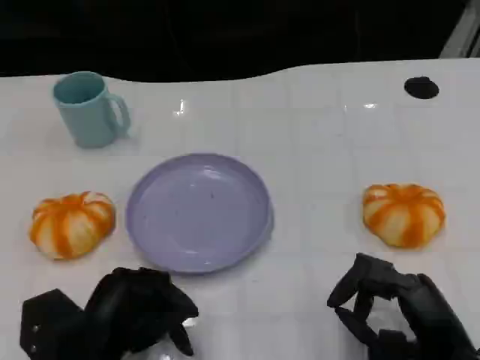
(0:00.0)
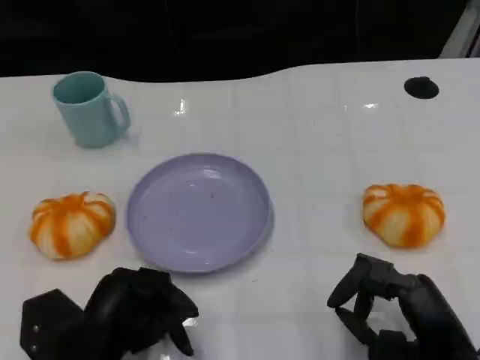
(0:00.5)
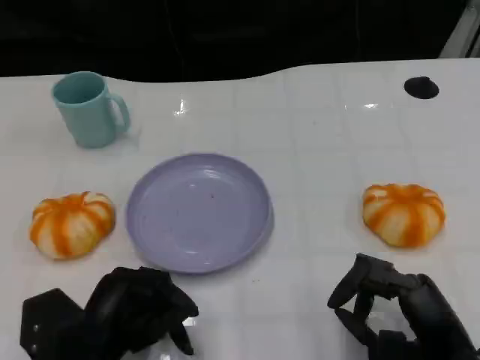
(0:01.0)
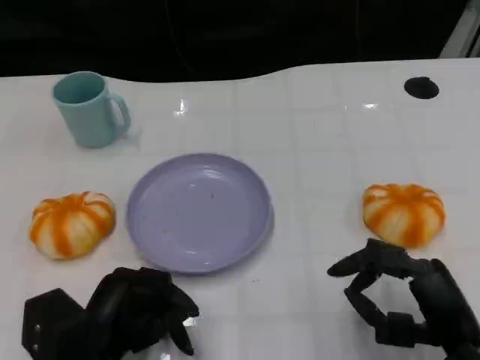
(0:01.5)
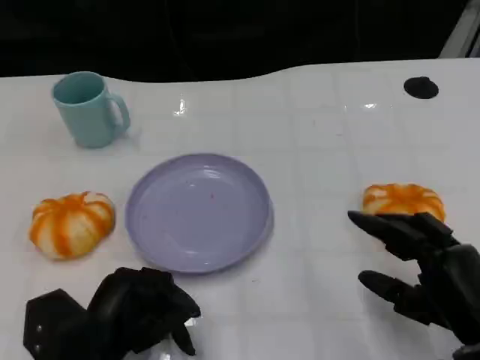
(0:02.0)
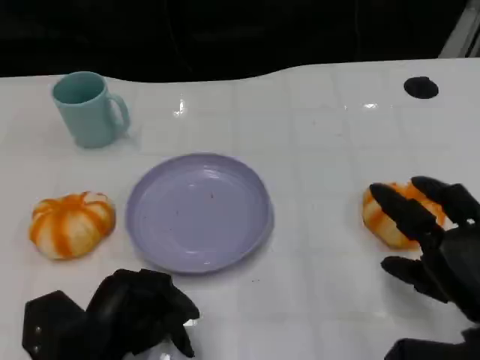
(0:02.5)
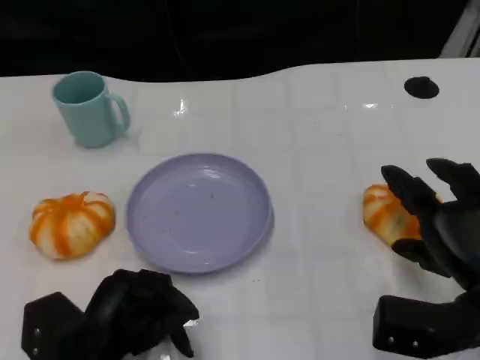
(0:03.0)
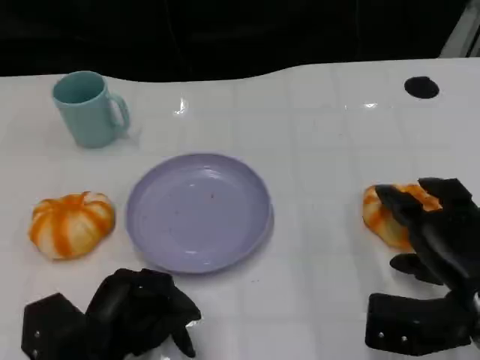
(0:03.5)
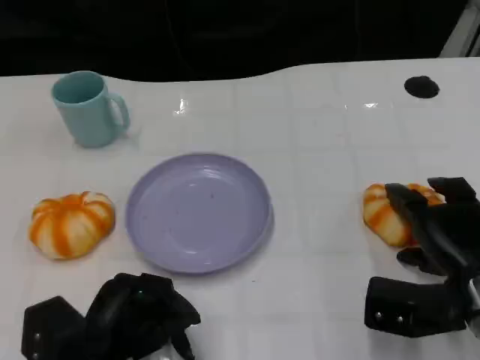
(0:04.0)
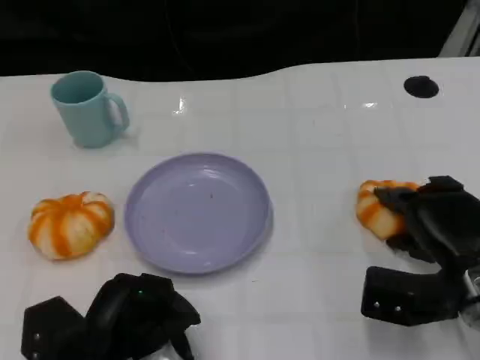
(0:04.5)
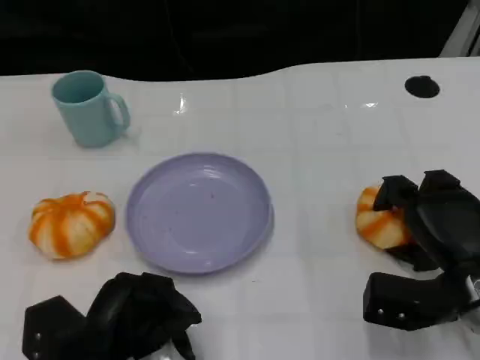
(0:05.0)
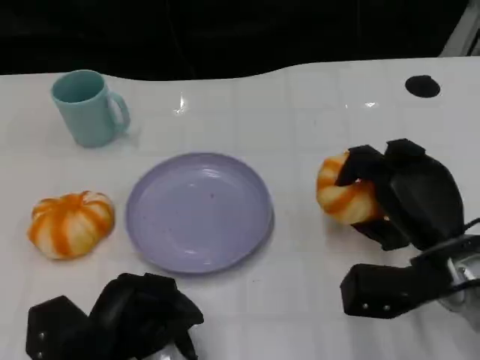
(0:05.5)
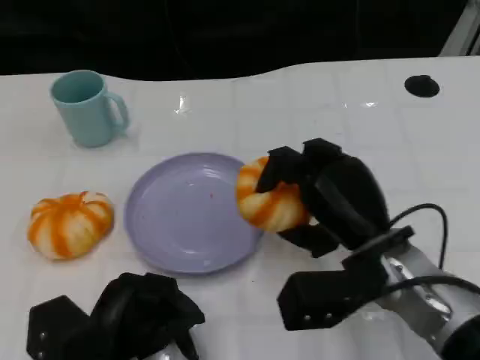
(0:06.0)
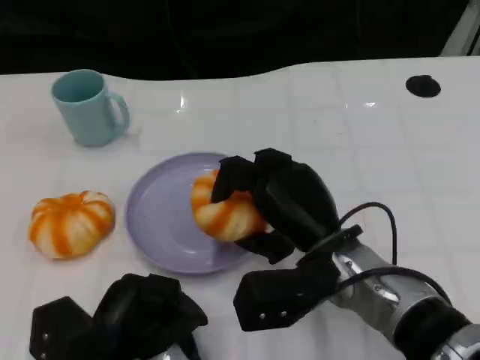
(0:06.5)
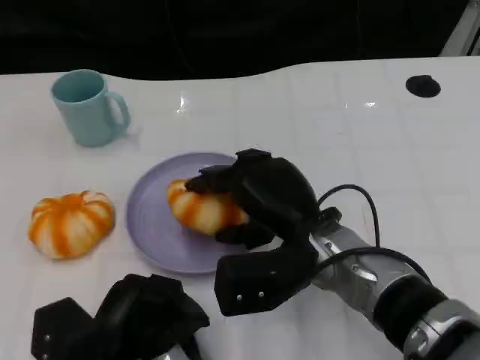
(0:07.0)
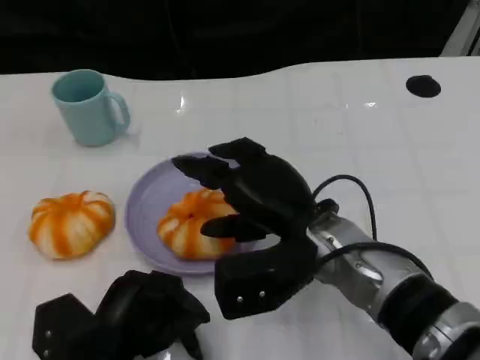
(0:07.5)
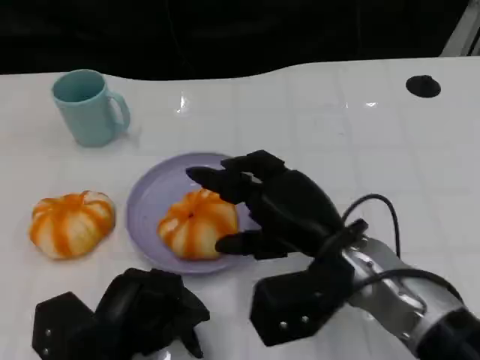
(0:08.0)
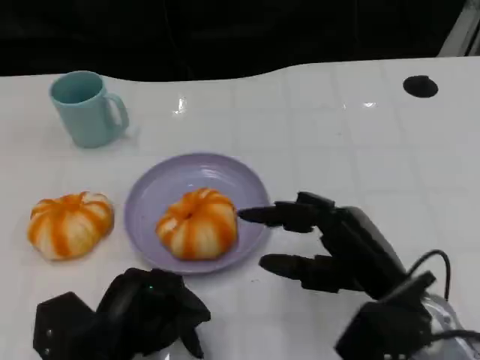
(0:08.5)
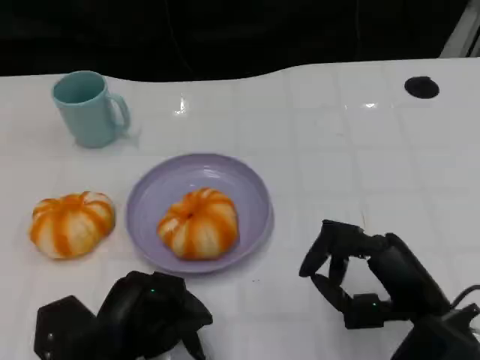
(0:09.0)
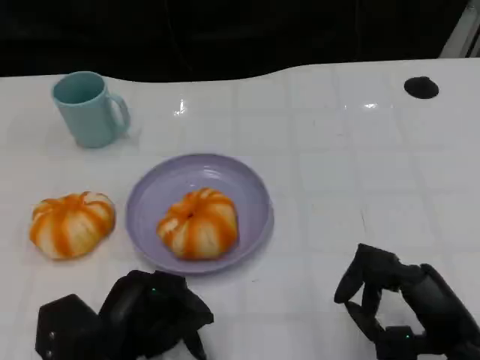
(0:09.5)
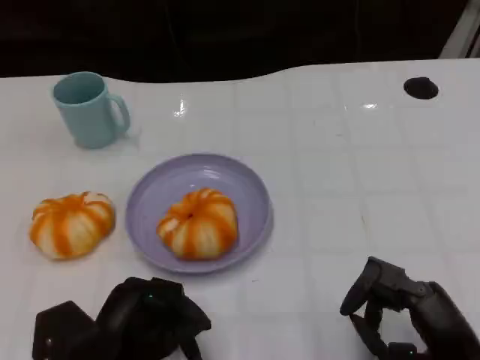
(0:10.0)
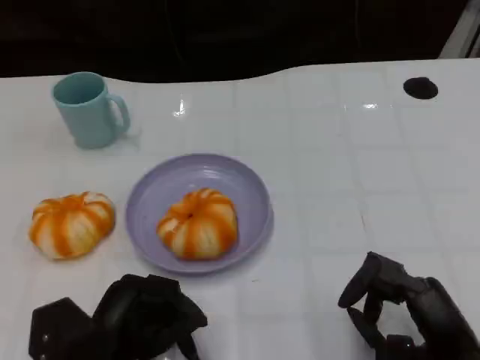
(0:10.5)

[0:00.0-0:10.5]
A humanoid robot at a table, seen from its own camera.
Task of the whole recording: Grasp the bread from the table and place it into the plate.
0:02.0 to 0:04.0: The right hand moves forward, approximately 5 cm.
0:04.0 to 0:06.5: The right hand heads to the left, covering roughly 15 cm.
0:06.5 to 0:08.5: The right hand shifts about 10 cm to the right.
0:08.5 to 0:10.5: The right hand shifts some 10 cm to the right and backward.

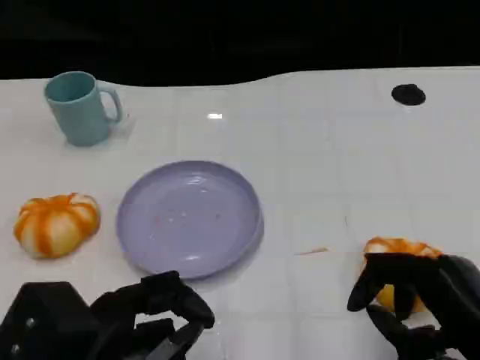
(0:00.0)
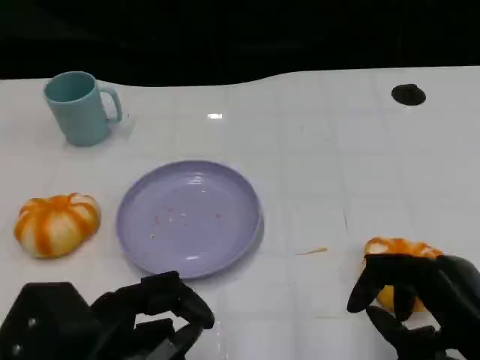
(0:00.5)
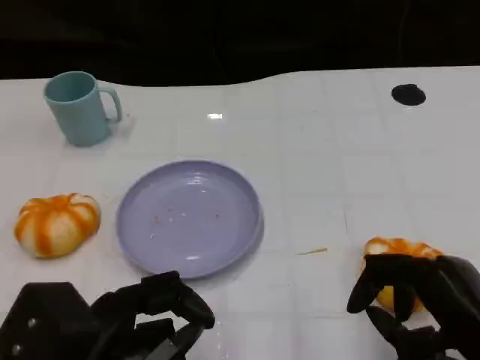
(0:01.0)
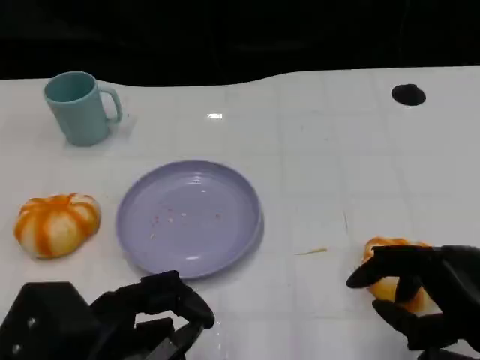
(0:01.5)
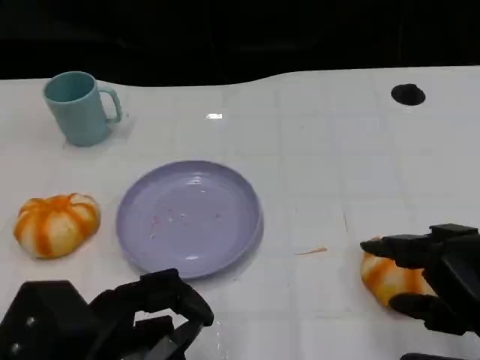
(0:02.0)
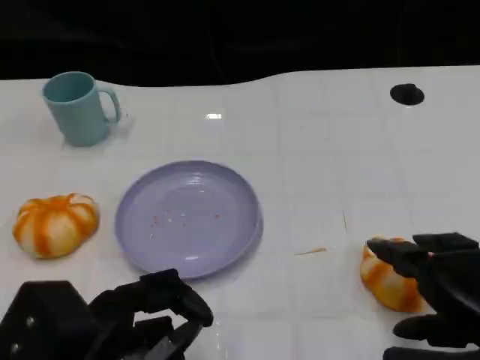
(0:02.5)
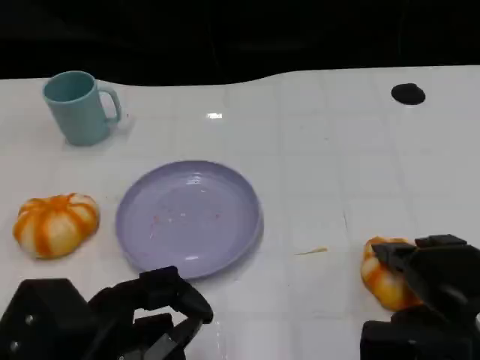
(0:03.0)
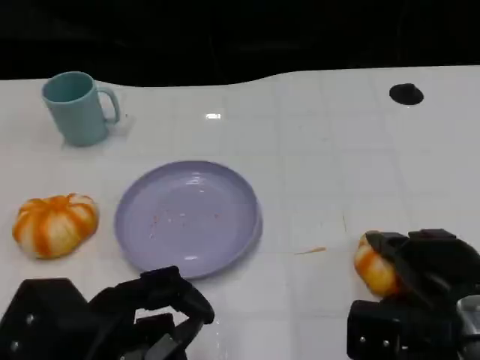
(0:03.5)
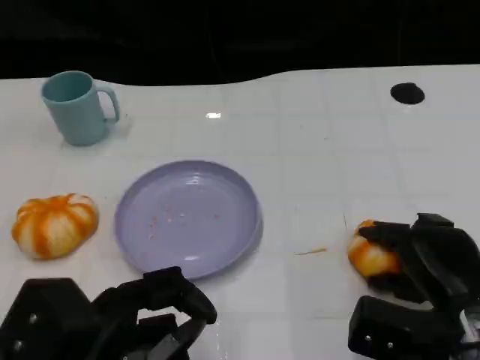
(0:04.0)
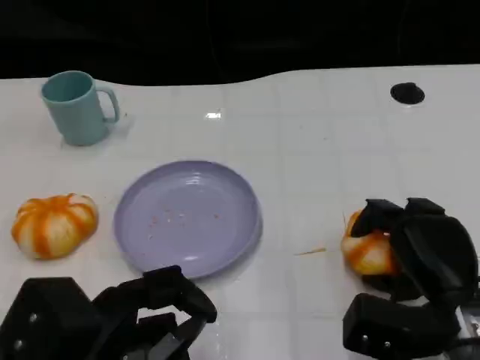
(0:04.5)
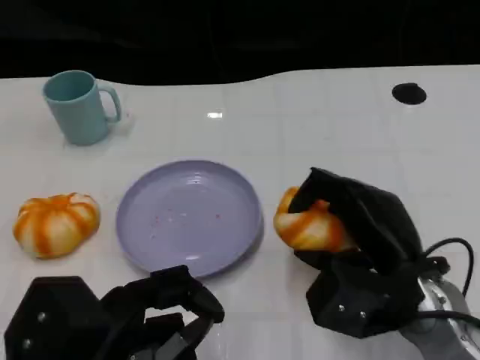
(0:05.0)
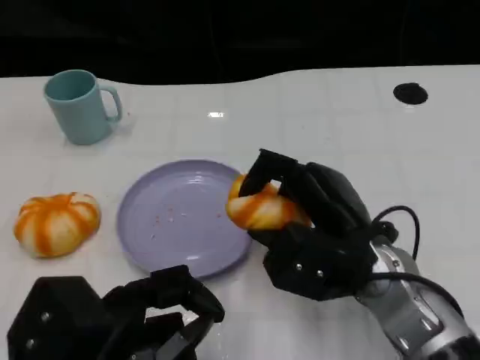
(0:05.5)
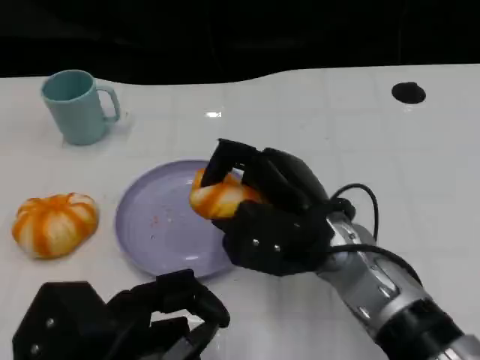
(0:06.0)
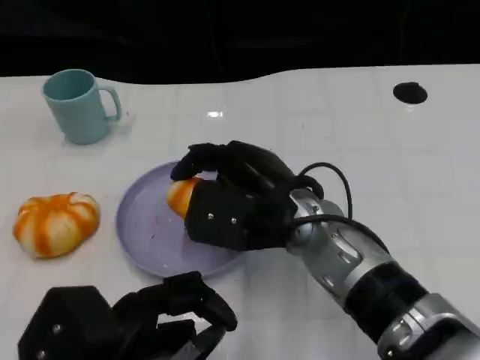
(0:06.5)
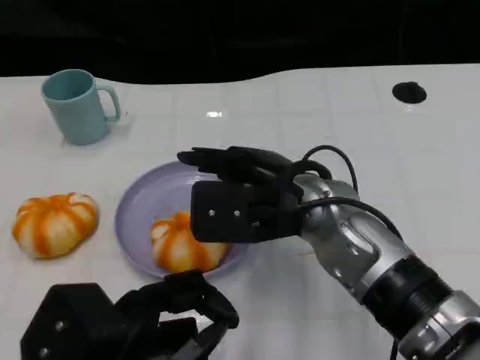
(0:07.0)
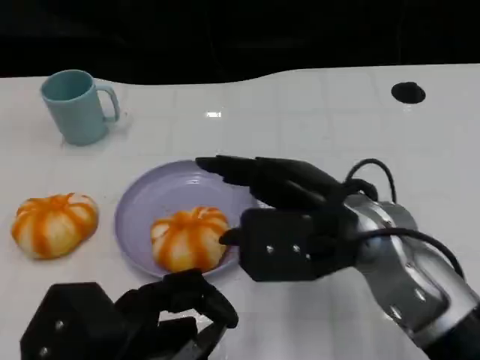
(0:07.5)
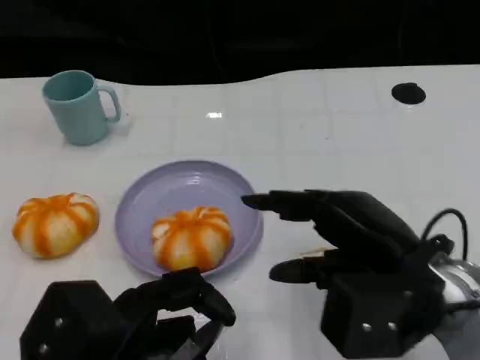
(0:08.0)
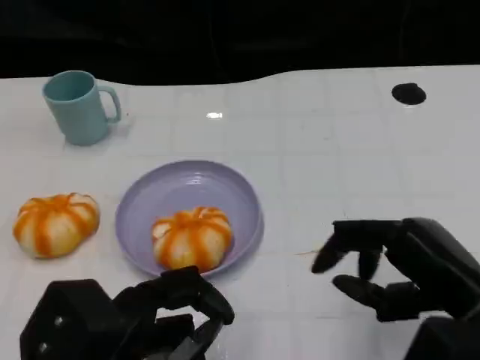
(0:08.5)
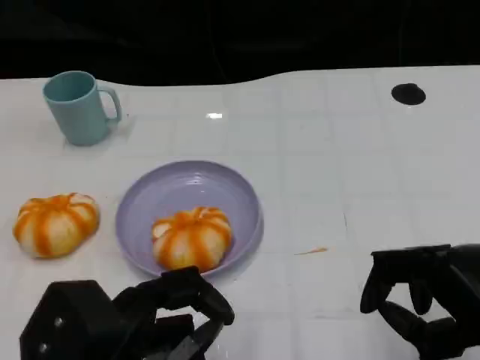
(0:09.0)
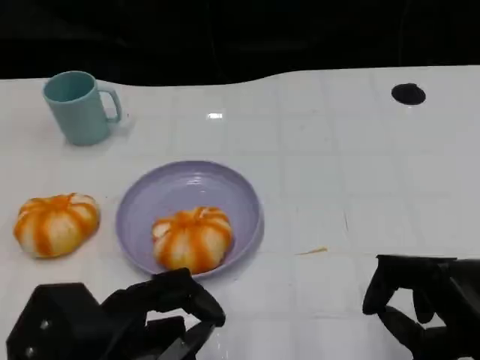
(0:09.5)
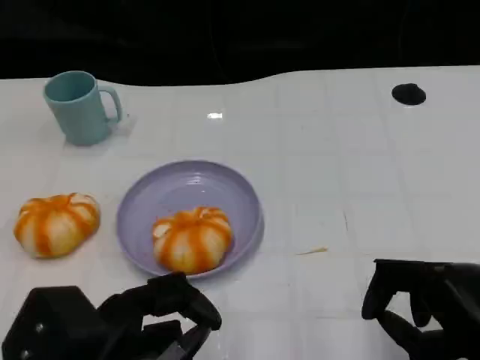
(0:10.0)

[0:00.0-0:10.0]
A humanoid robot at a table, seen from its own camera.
Task of the whole recording: Grasp the bread from the table and place it into the plate.
0:02.0 to 0:04.0: The right hand heads downward and forward, covering about 10 cm.
0:04.0 to 0:06.0: The right hand goes about 15 cm to the left and upward.
0:06.0 to 0:08.0: The right hand goes about 10 cm to the right and backward.
0:08.0 to 0:10.0: The right hand shifts roughly 10 cm backward and to the right.

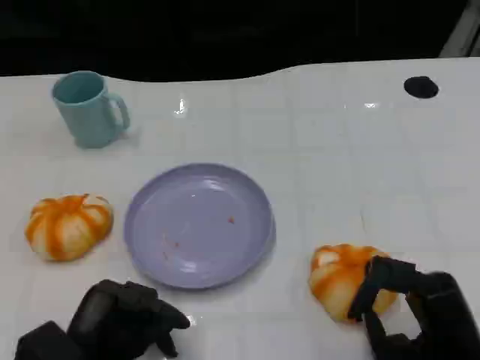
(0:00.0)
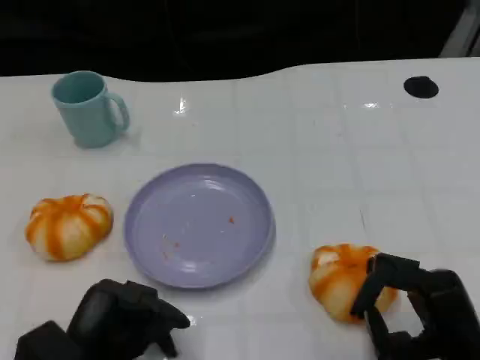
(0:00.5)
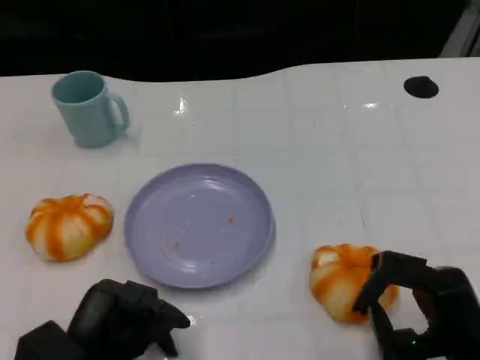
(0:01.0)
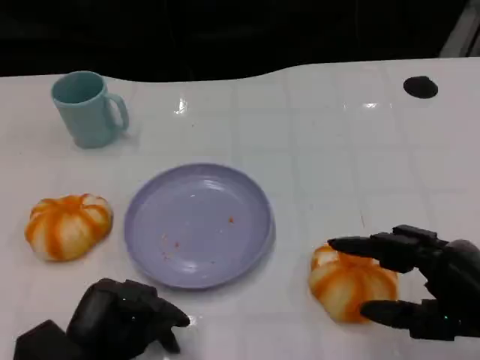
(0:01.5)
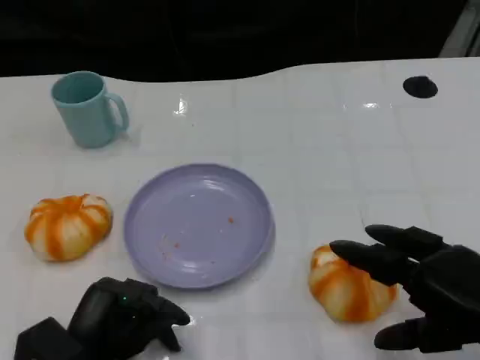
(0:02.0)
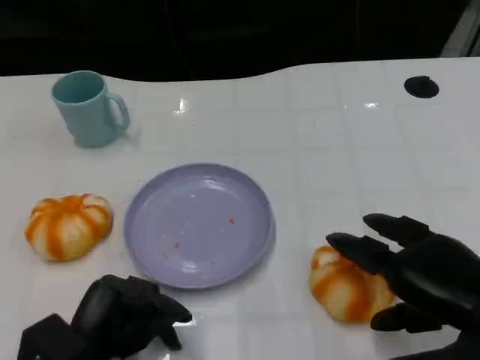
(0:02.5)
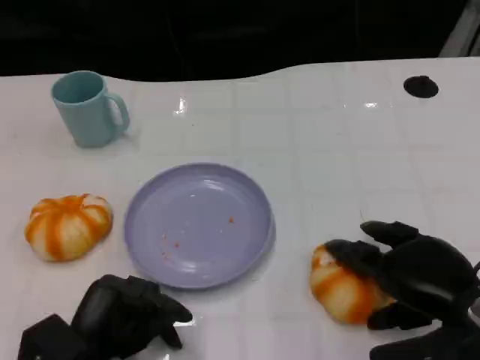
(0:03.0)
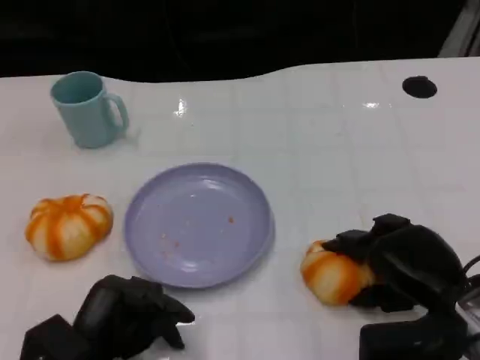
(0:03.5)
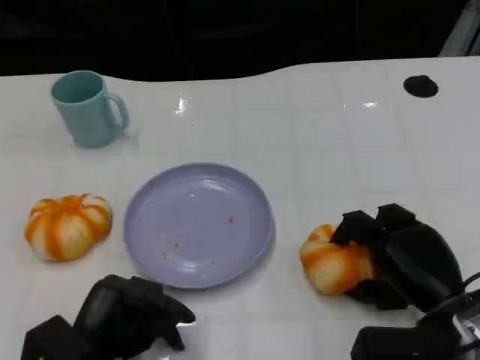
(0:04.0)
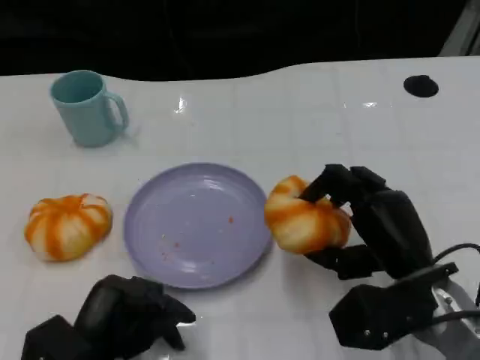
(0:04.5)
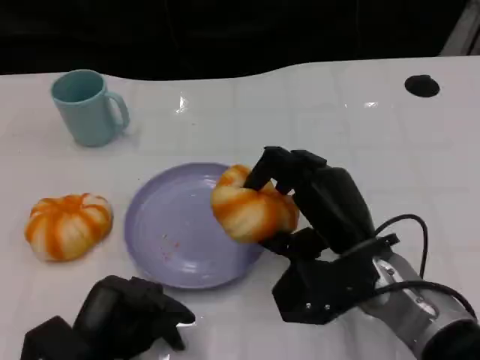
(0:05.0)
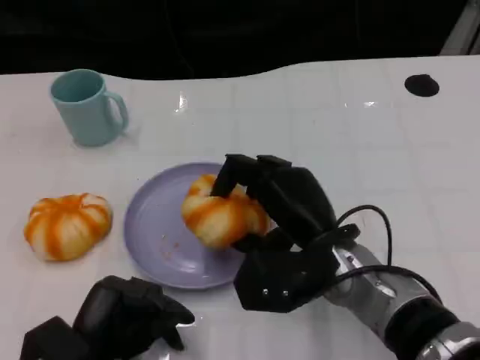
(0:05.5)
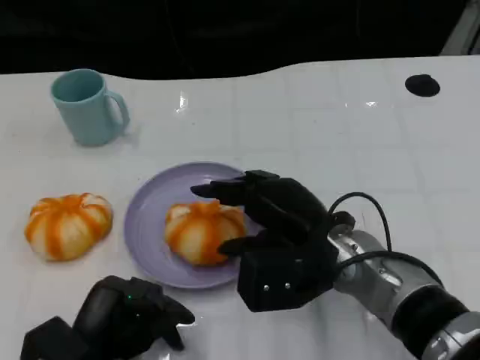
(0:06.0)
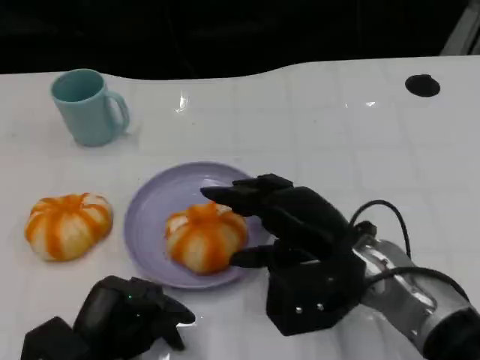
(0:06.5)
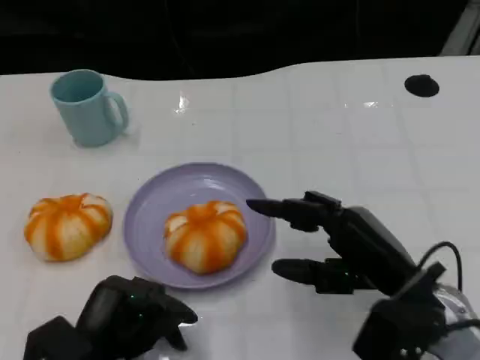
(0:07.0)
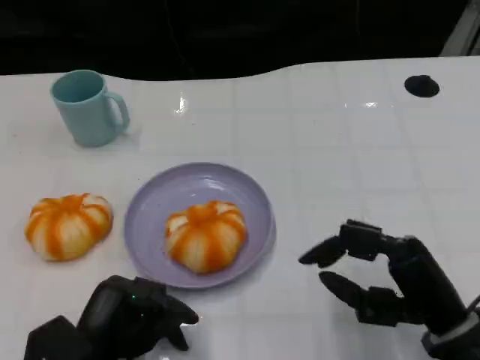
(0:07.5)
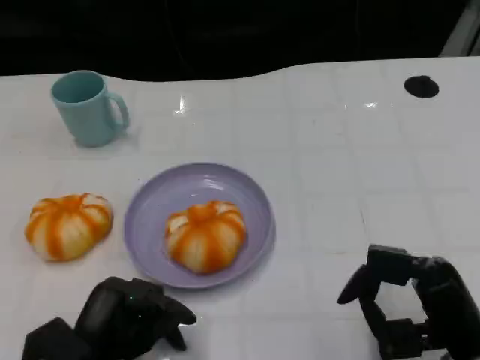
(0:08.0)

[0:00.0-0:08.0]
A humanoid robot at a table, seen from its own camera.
Task of the whole recording: Grasp the bread from the table and place it into the plate.
0:00.0 to 0:02.0: The right hand shifts some 10 cm upward.
0:02.0 to 0:04.0: The right hand shifts some 10 cm downward and forward.
0:04.0 to 0:06.0: The right hand moves to the left and upward, approximately 15 cm.
0:06.0 to 0:08.0: The right hand is displaced to the right and backward by some 15 cm.
